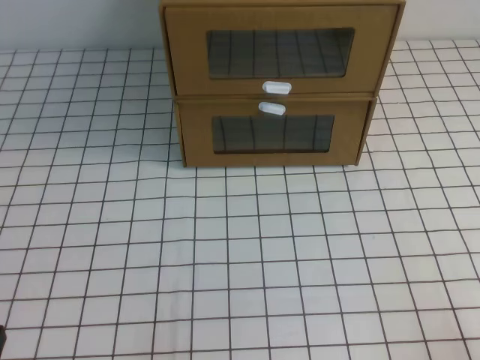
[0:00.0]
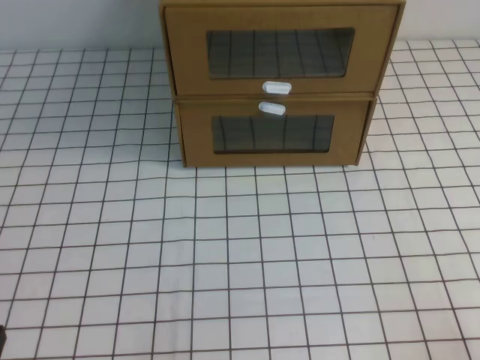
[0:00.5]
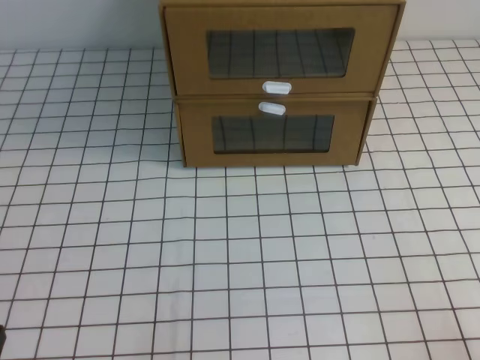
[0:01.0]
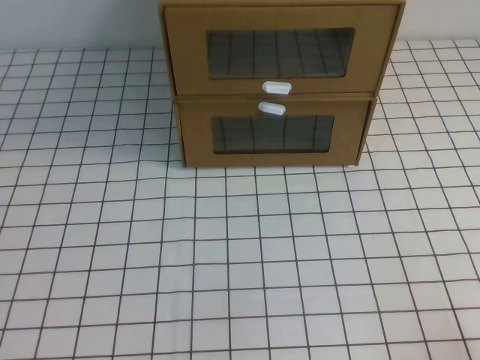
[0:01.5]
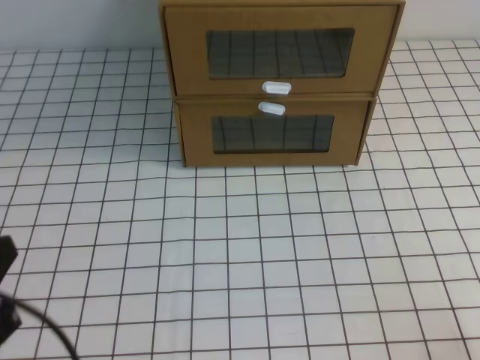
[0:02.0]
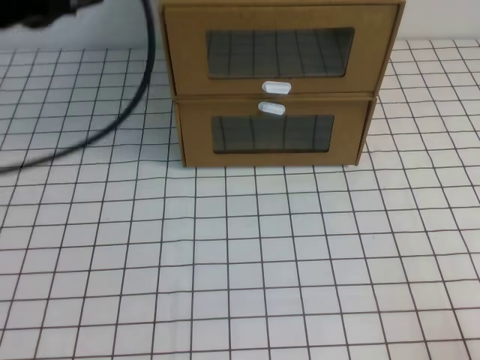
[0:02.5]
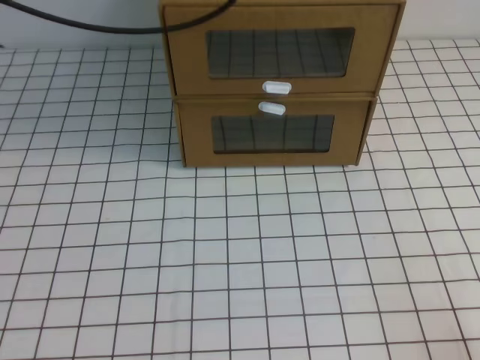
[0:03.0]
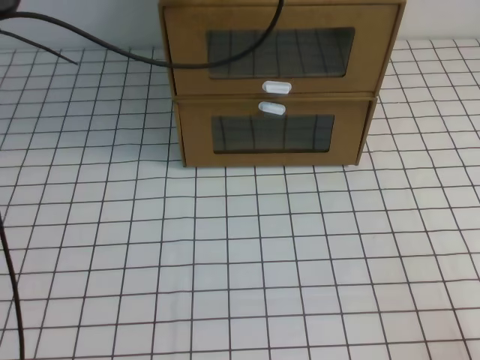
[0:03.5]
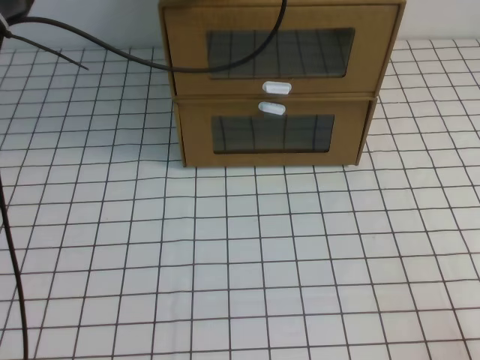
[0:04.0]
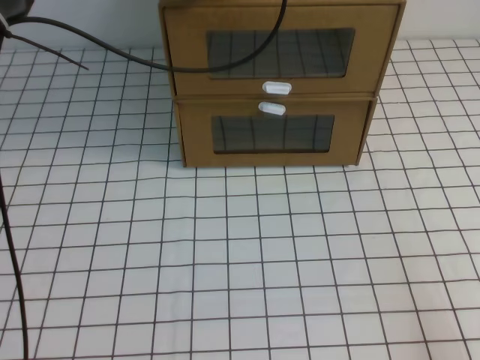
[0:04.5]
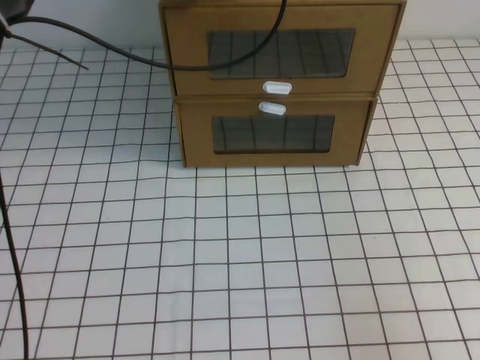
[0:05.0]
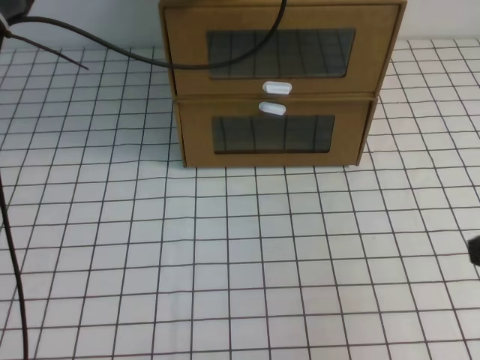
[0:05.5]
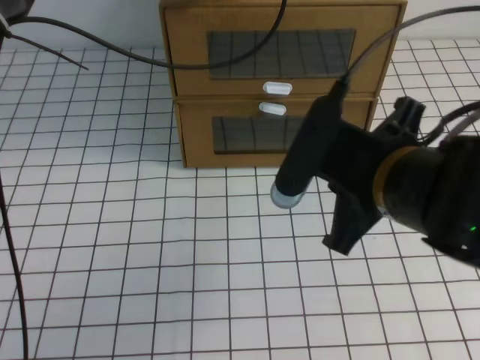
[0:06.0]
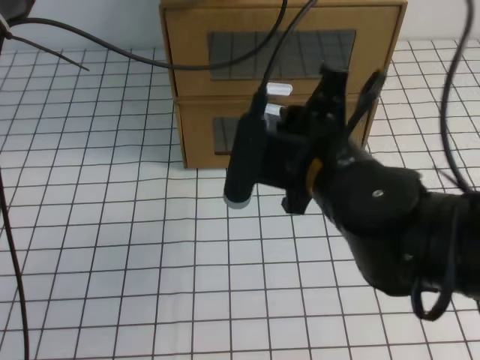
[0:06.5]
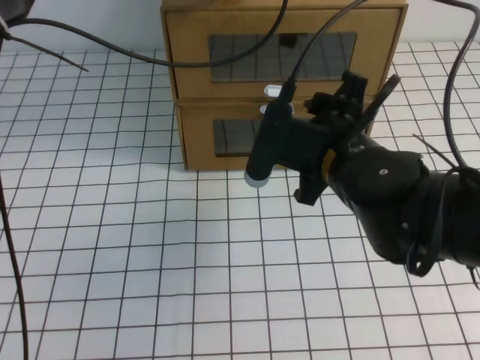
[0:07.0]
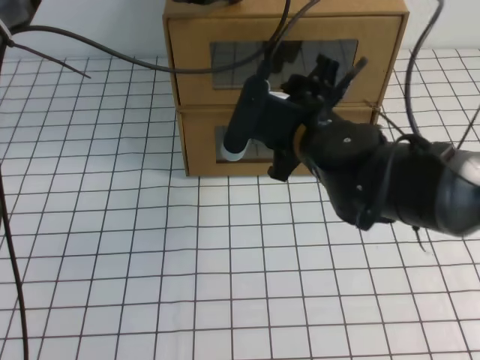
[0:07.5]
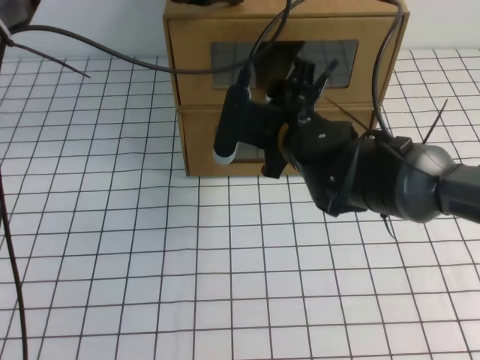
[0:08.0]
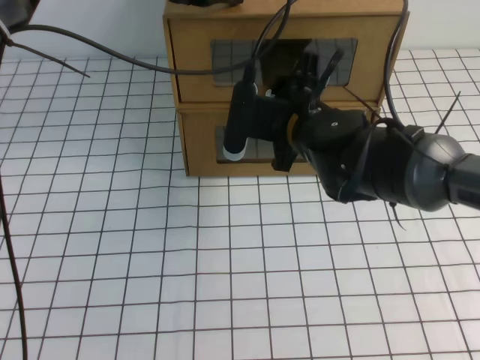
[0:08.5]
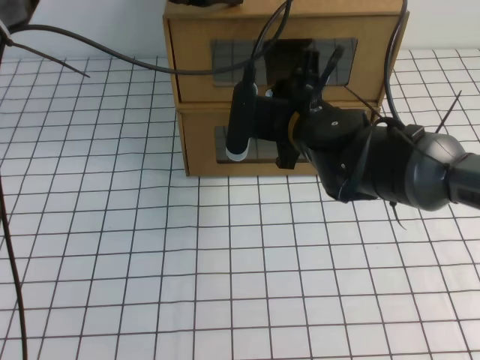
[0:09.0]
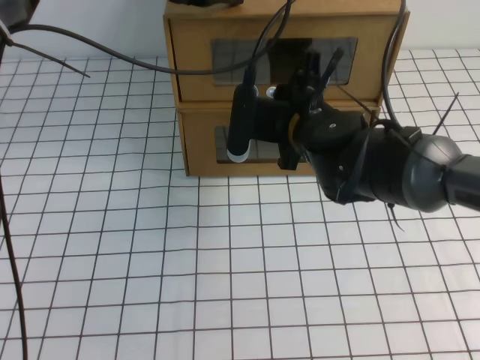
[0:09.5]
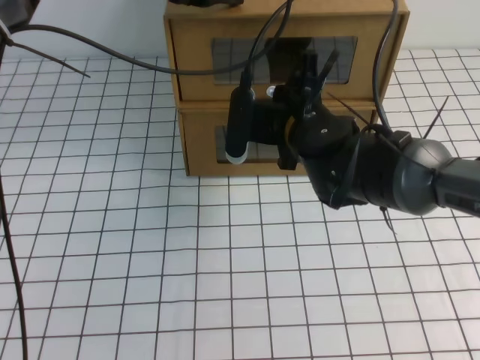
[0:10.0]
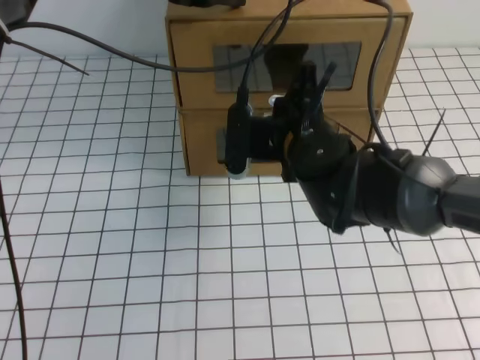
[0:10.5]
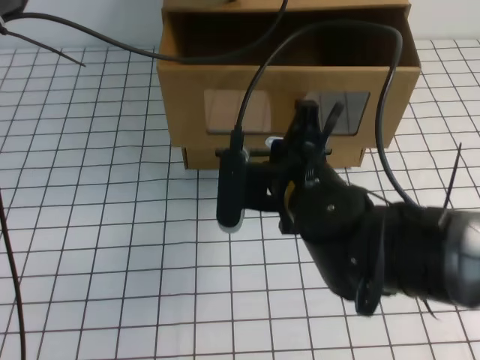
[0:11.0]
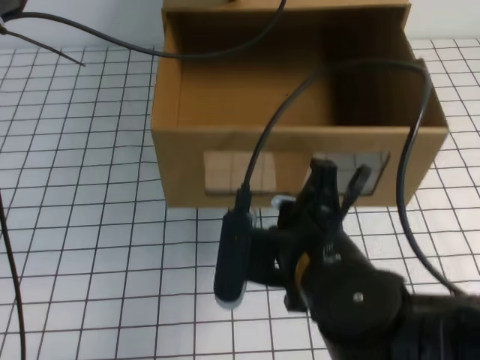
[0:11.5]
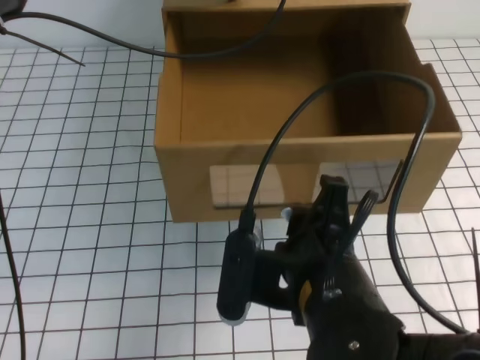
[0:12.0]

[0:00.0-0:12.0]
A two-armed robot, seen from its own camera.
Task of the whole recording: open the shoebox on the white tablecloth.
0.0 to 2.0 s: The left gripper travels upward by some 10 cm.
2.0 to 4.0 s: The left gripper shifts approximately 40 cm forward and to the right.
4.0 to 6.0 s: The right gripper is displaced to the left, forward and upward by approximately 30 cm.
6.0 to 8.0 s: The right gripper is displaced forward, to the left and downward by about 15 cm, and opens its fingers.
8.0 to 10.0 s: The right gripper closes.
10.0 to 12.0 s: The right gripper goes some 20 cm backward.

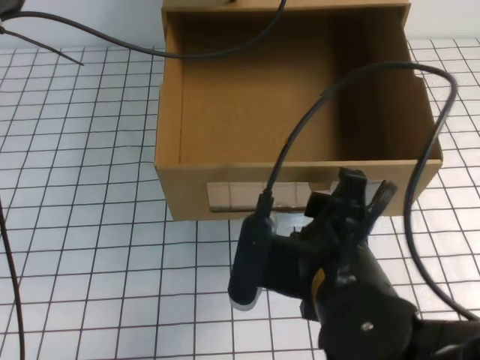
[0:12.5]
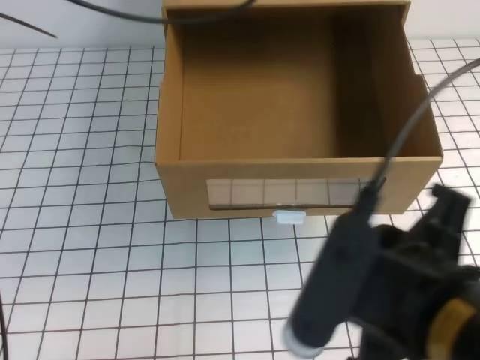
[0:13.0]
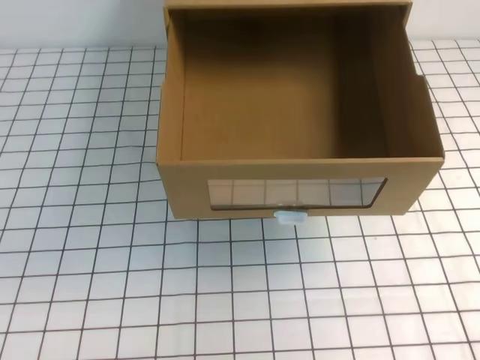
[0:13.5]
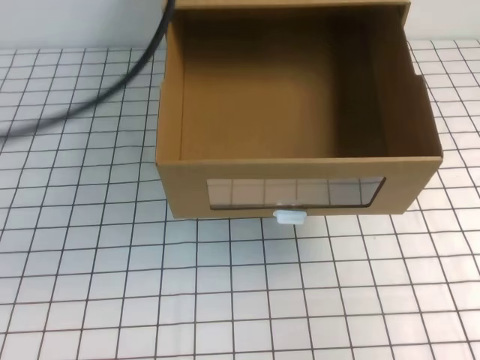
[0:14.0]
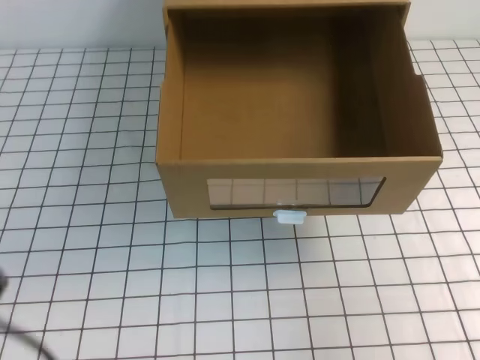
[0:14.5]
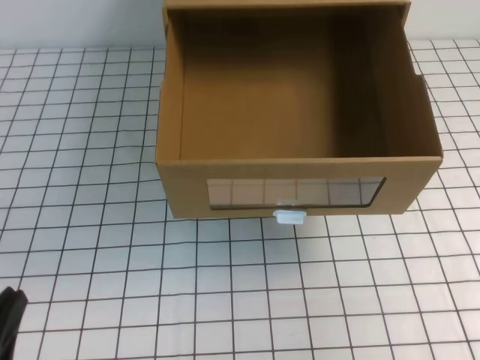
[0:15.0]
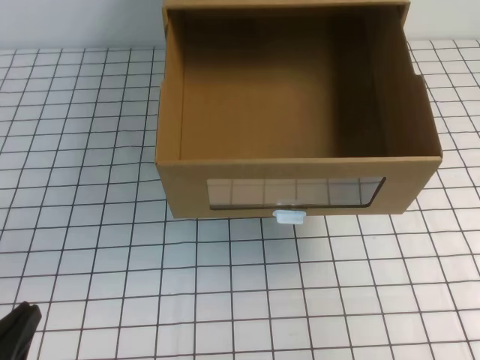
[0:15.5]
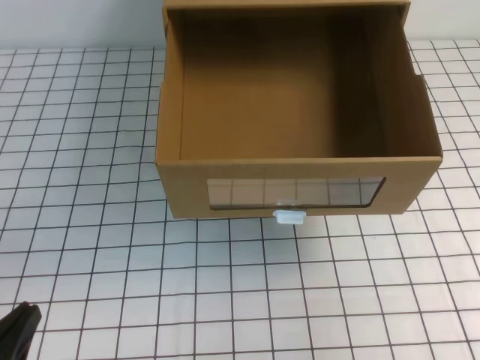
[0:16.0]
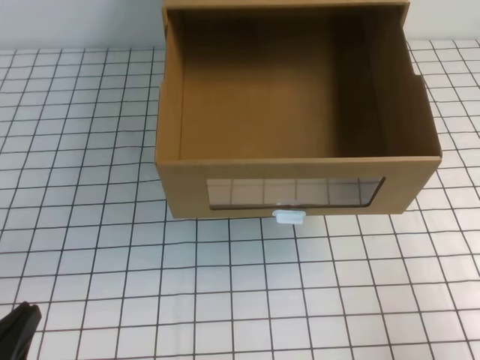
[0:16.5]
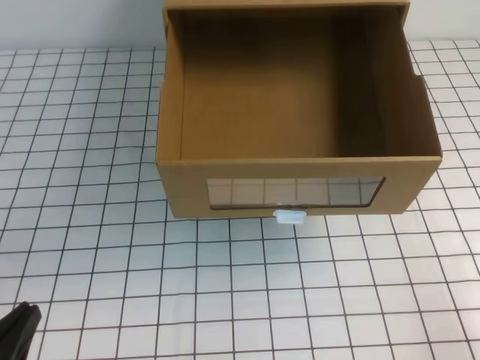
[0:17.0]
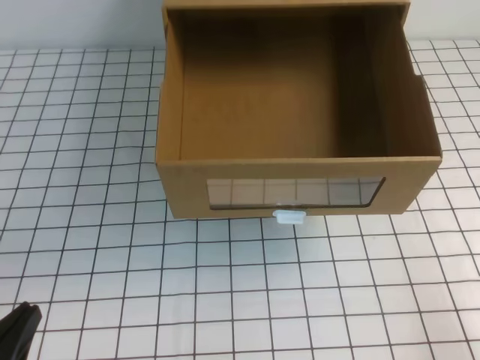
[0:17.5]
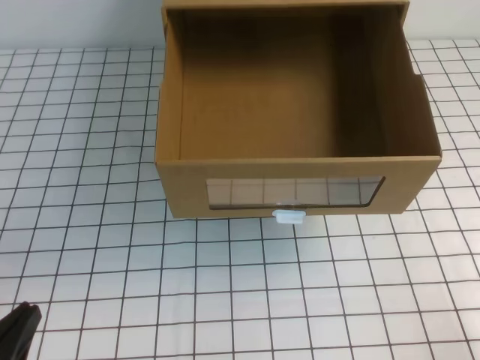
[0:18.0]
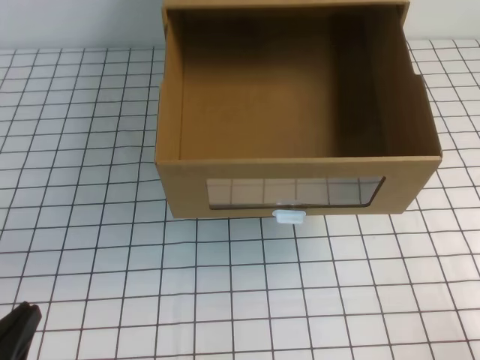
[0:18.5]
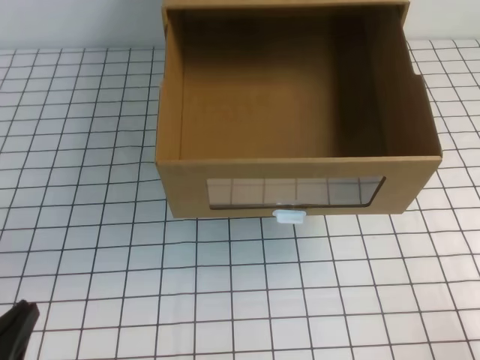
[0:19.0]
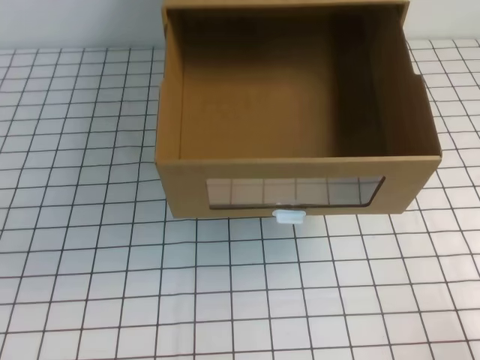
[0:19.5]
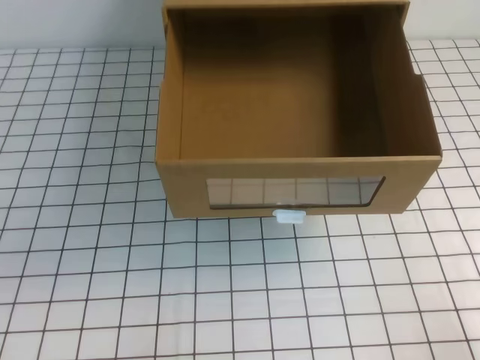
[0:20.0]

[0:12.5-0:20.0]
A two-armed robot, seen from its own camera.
Task of the whole recording: open the shoebox on the white tablecloth.
Step, 12.5 to 20.0 s: Open the shoe box.
12.5 to 14.5 s: The right gripper heads to the right, covering some 20 cm, and closes its fingers. The left gripper moves backward and to the left, about 35 cm.
14.5 to 16.5 s: The right gripper shifts some 5 cm downward. The left gripper heads downward, covering roughly 15 cm.
18.0 to 20.0 s: The grippers make only small movements.

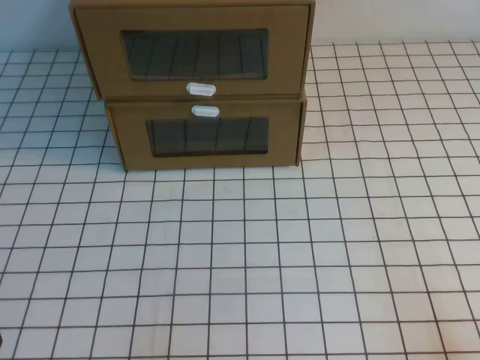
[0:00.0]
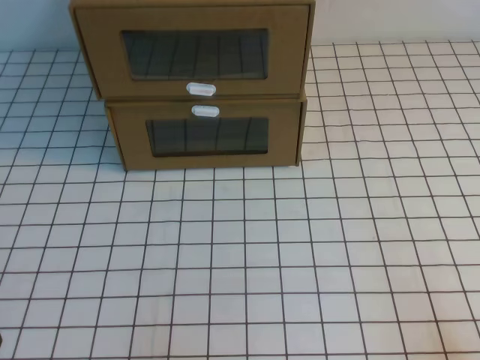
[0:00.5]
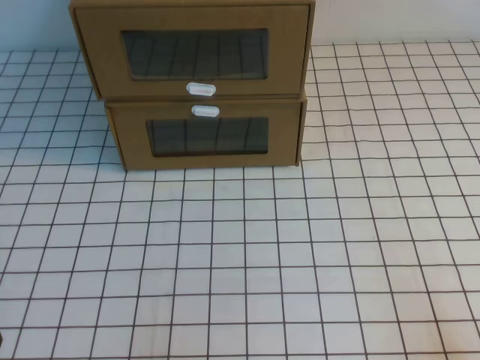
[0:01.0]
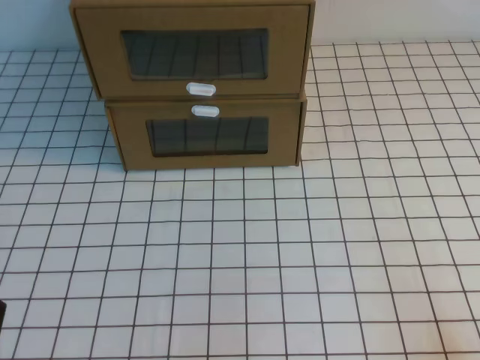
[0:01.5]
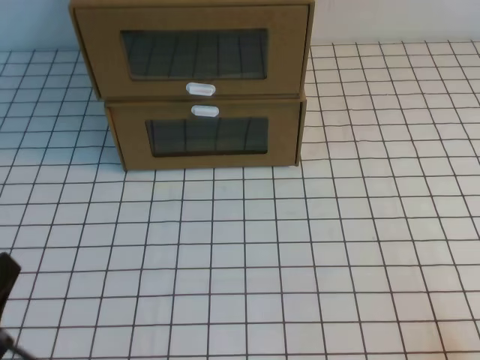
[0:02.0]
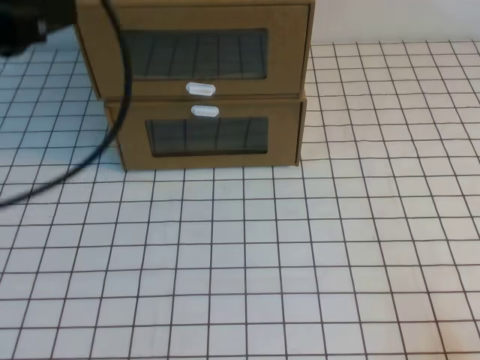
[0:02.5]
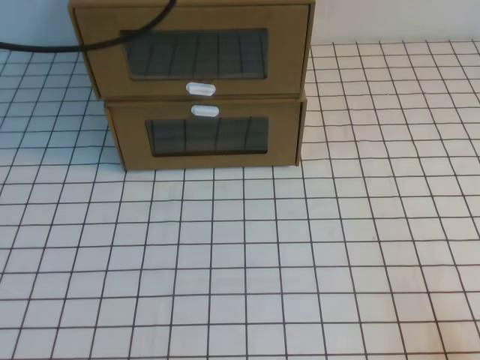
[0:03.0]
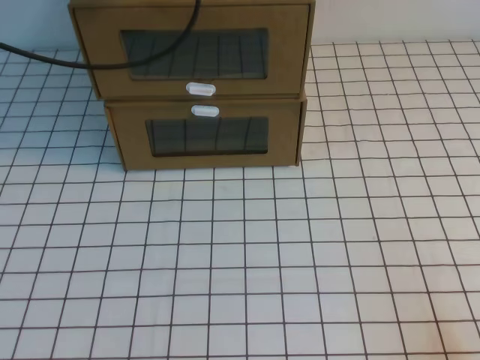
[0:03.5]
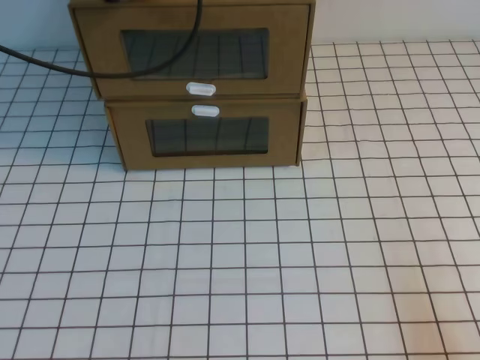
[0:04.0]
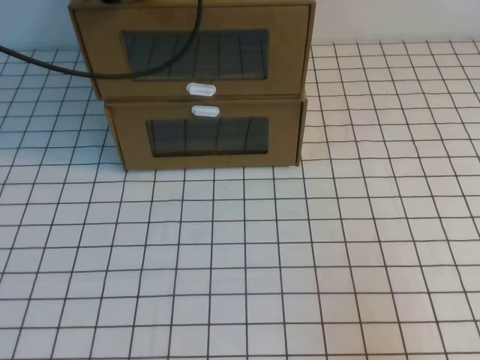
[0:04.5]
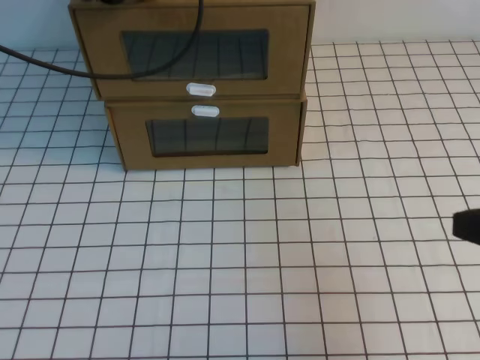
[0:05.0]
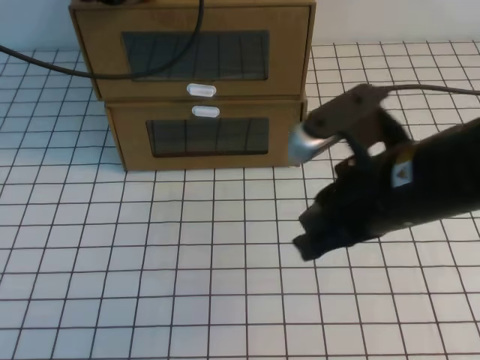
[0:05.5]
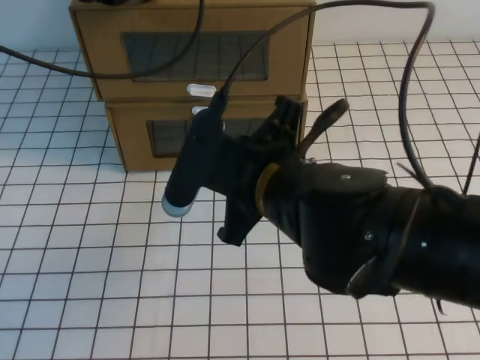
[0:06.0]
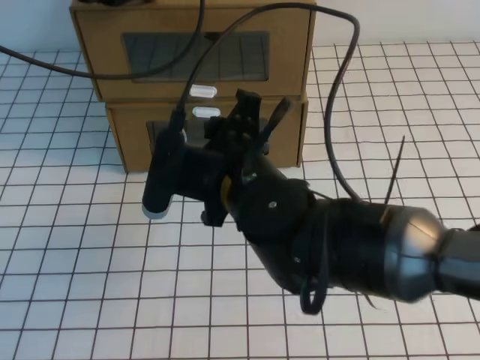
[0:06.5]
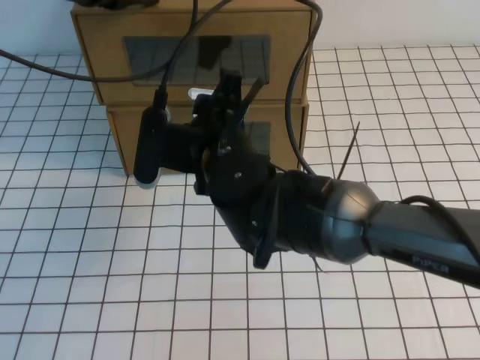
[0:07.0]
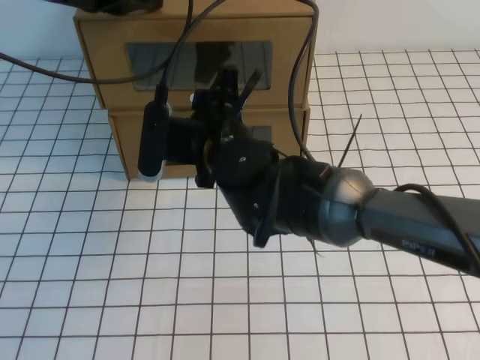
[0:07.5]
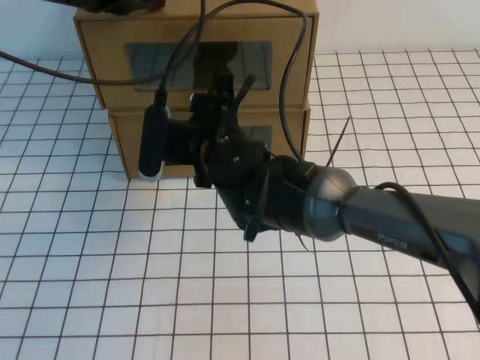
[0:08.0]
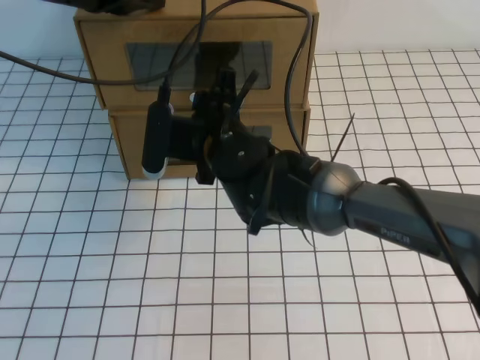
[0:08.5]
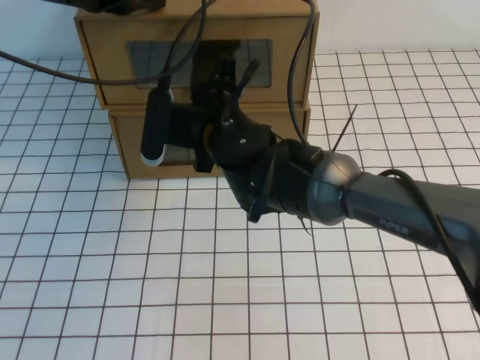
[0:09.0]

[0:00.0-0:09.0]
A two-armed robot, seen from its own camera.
Task of the whole recording: open the shoebox on the white tablecloth.
2.0 to 4.5 s: The left gripper moves forward and upward, approximately 40 cm, while the right gripper travels upward by some 10 cm.
4.5 to 7.0 s: The right gripper travels to the left and forward by about 40 cm, and opens up.
7.0 to 9.0 s: The right gripper goes some 5 cm forward.
